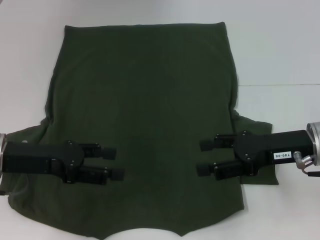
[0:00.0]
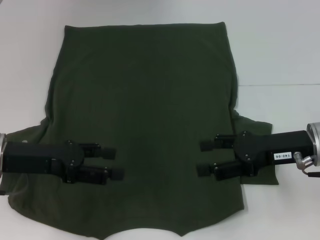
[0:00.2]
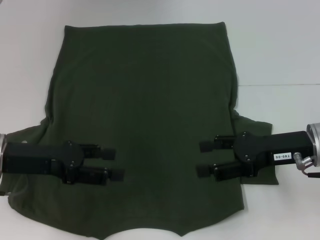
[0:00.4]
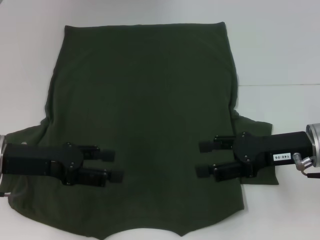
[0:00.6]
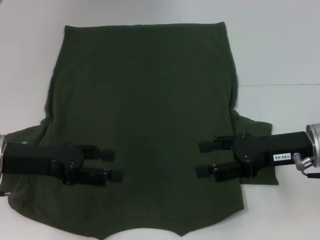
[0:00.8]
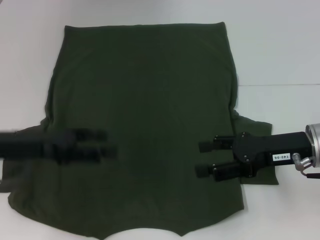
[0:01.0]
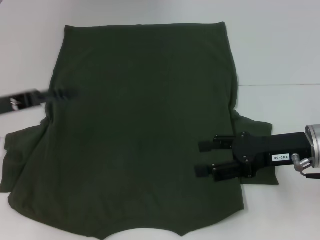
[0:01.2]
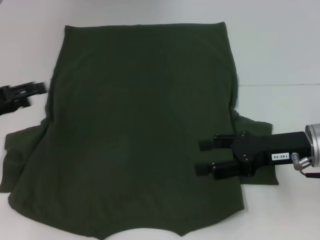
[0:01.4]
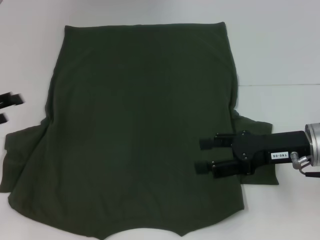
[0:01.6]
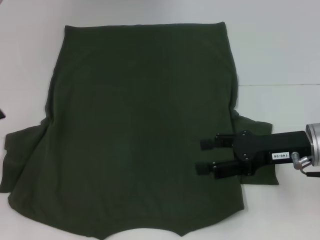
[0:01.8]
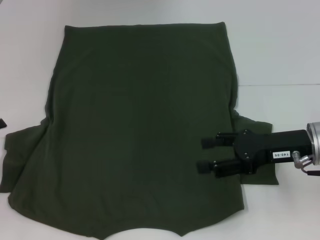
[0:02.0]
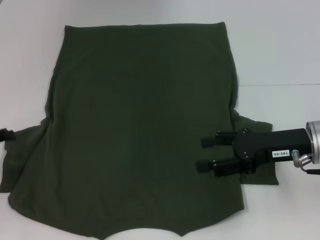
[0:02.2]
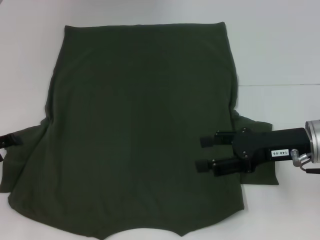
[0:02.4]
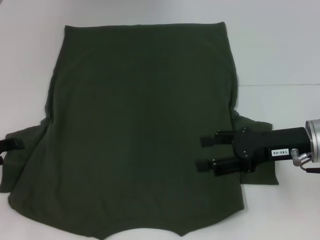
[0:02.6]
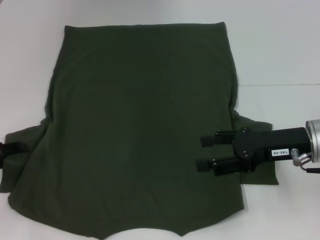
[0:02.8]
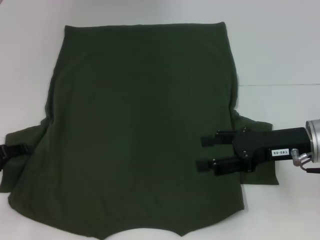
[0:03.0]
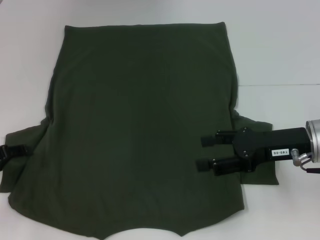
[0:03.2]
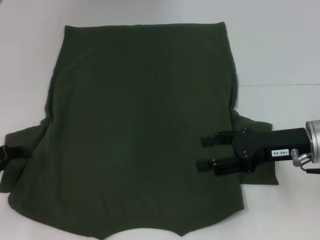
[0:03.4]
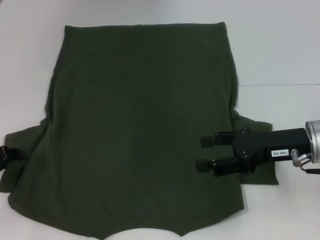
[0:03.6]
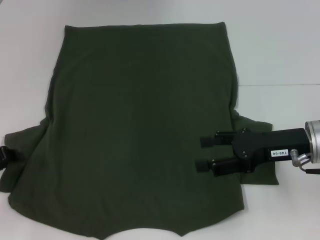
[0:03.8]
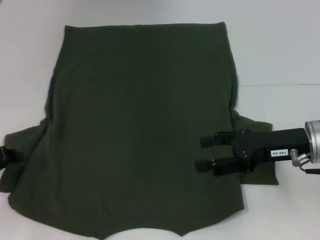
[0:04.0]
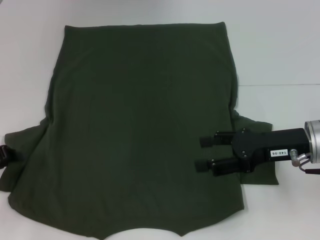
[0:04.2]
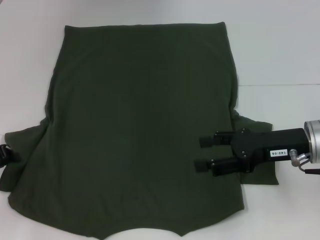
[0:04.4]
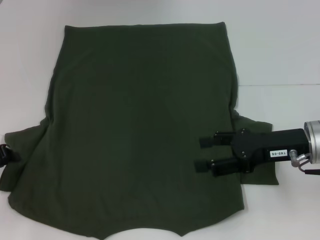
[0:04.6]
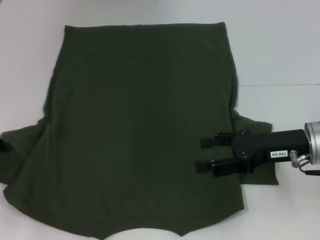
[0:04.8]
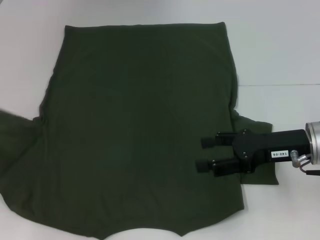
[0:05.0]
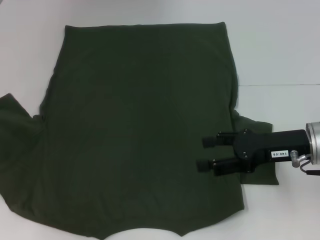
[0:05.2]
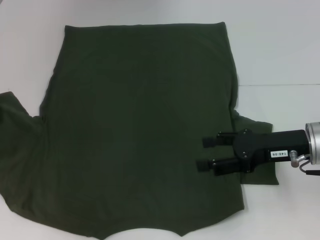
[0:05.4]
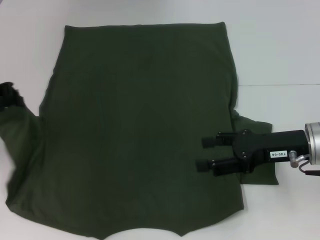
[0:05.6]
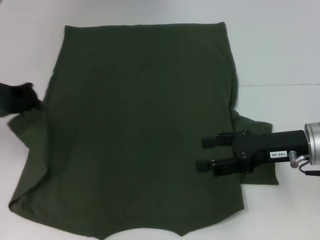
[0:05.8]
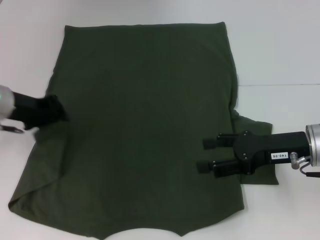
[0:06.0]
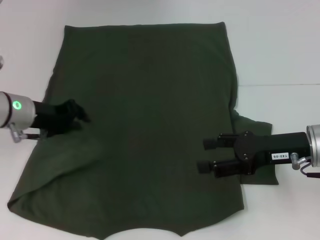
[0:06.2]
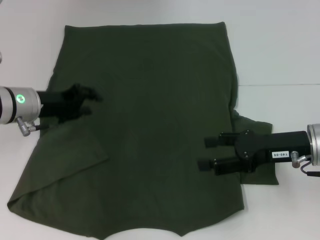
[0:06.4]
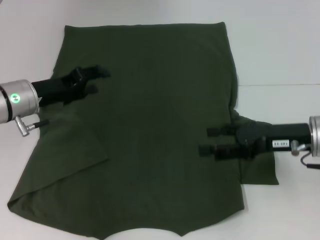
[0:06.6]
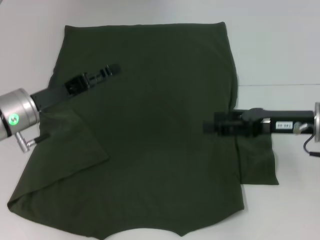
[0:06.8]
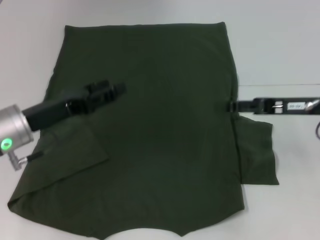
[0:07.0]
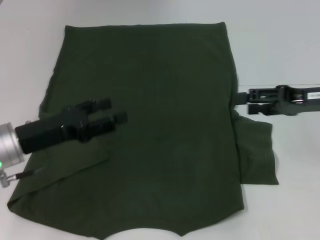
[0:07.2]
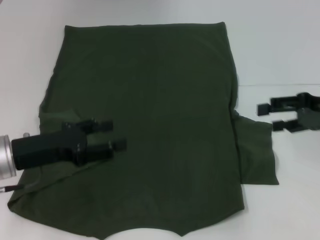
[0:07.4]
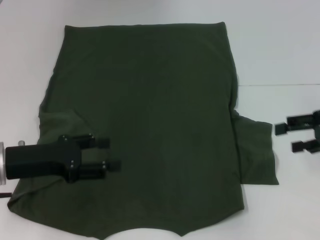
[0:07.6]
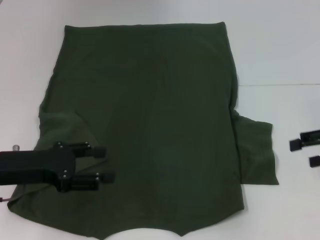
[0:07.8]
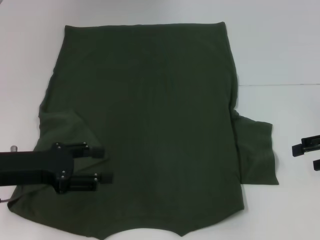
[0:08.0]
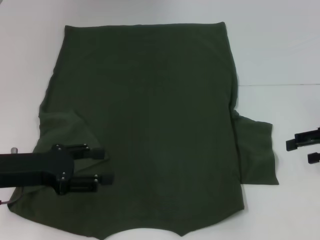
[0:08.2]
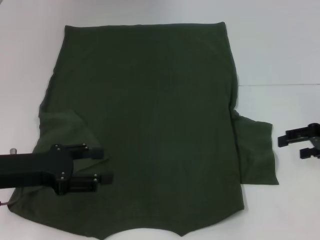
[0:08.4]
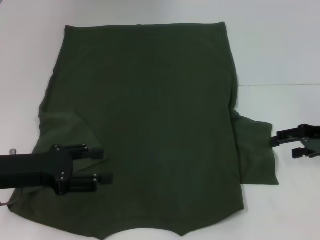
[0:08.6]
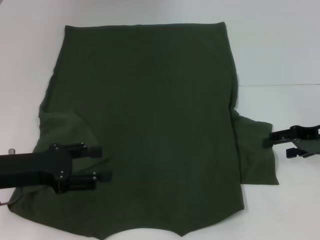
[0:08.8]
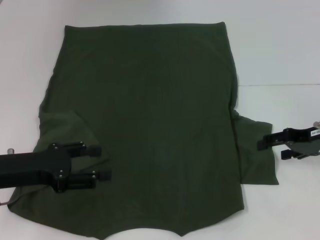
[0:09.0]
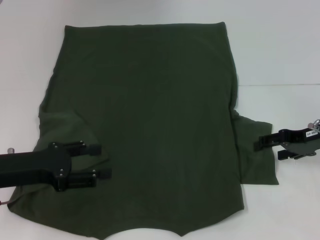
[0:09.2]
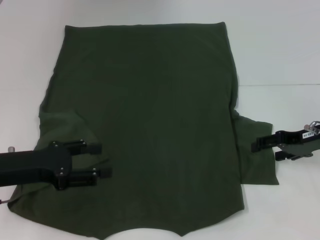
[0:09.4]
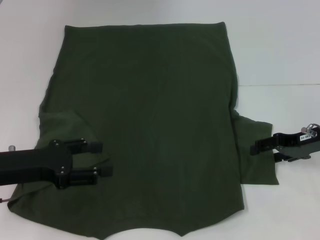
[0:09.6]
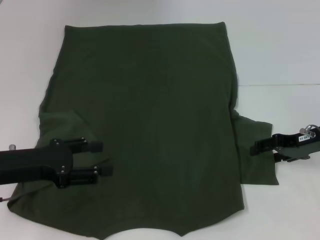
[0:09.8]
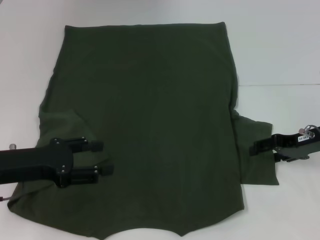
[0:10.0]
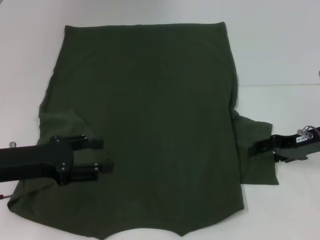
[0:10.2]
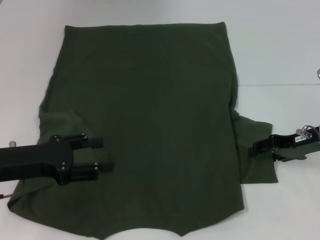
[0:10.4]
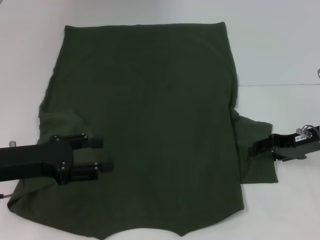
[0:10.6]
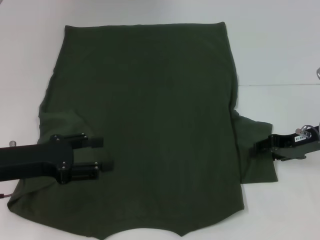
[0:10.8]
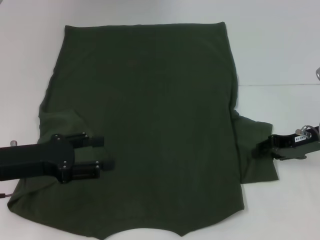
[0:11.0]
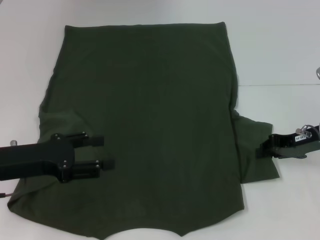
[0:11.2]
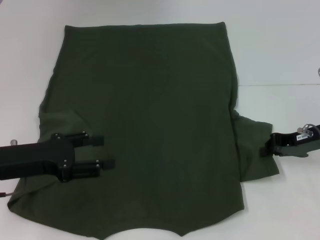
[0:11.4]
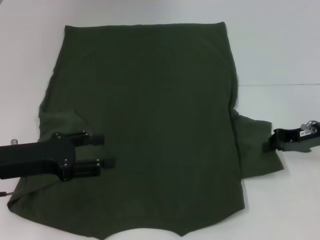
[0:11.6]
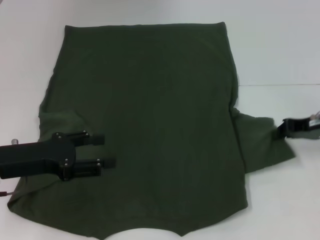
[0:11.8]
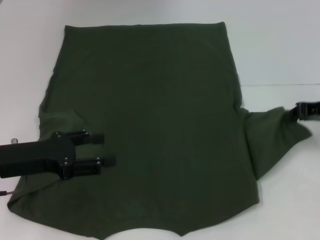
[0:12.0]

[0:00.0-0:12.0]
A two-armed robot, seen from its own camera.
Step, 0:00.0 to 0:06.2: Fold the bottom left sleeve with your left hand.
0:00.0 to 0:01.6: The left gripper goes about 10 cm to the left.
0:01.6 to 0:03.0: The left gripper shifts roughly 5 cm downward.
0:04.4 to 0:06.0: The left gripper moves forward, to the right and upward, roughly 15 cm.
0:06.0 to 0:07.6: The right gripper heads to the right, covering roughly 10 cm; the left gripper moves backward, about 10 cm, and opens.
0:07.6 to 0:09.0: The right gripper moves roughly 5 cm.
0:09.0 to 0:10.4: The grippers stay close to where they were, moving slightly.
0:10.4 to 0:12.0: The right gripper changes place by about 5 cm, and closes up.

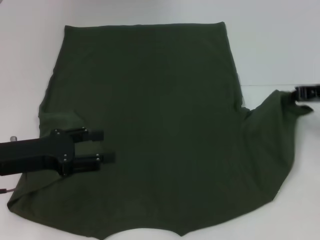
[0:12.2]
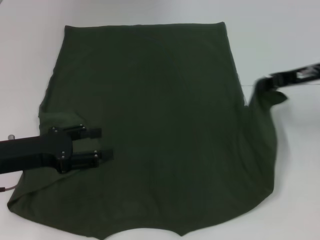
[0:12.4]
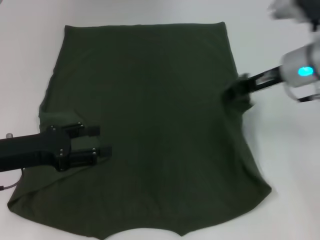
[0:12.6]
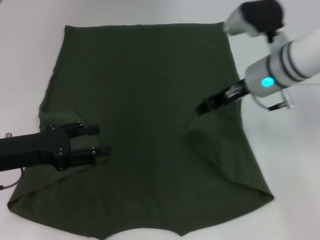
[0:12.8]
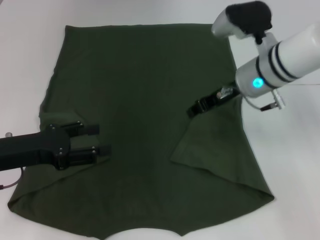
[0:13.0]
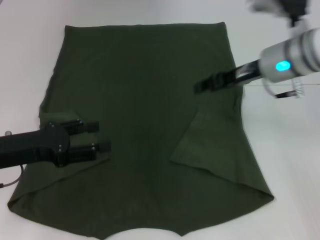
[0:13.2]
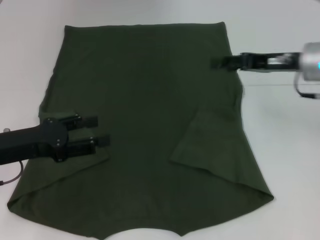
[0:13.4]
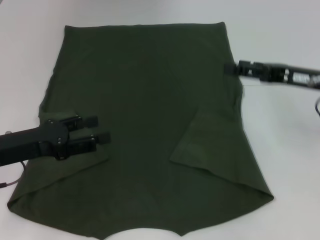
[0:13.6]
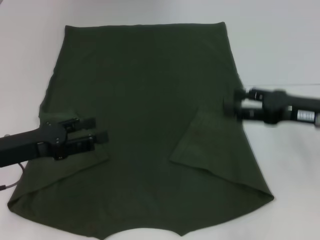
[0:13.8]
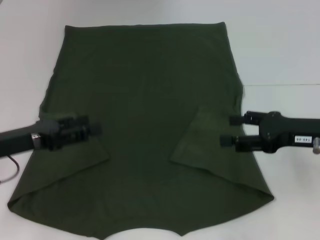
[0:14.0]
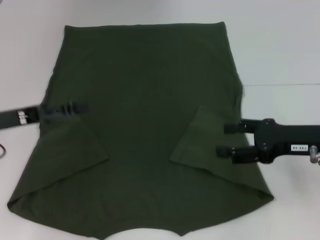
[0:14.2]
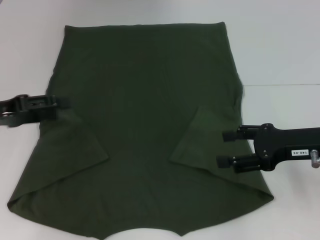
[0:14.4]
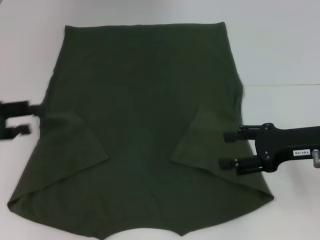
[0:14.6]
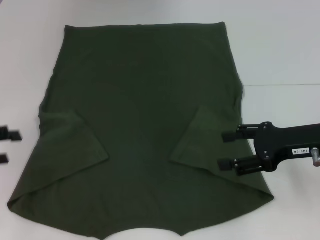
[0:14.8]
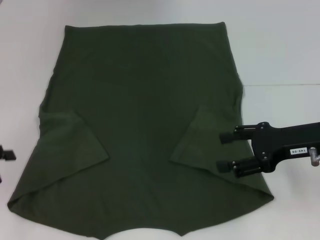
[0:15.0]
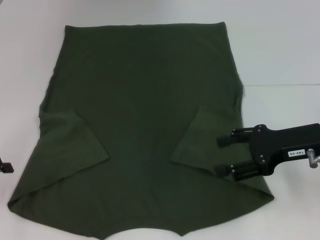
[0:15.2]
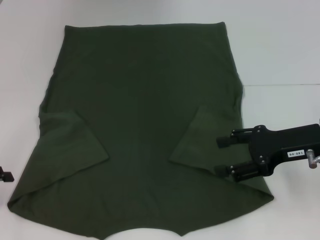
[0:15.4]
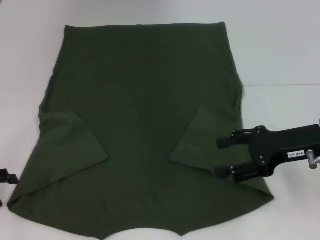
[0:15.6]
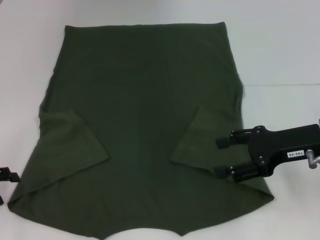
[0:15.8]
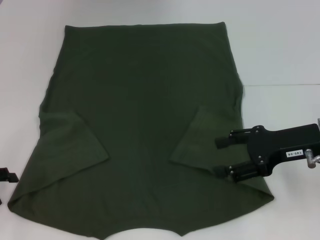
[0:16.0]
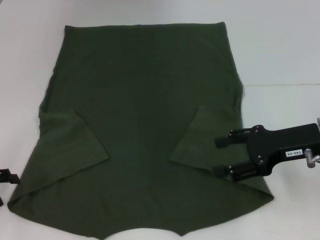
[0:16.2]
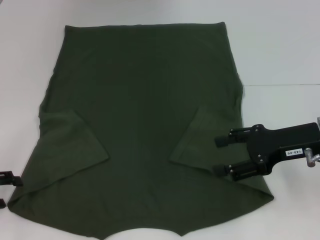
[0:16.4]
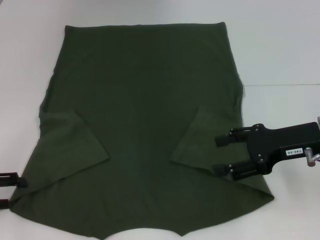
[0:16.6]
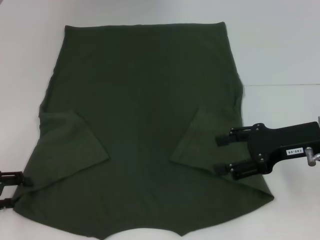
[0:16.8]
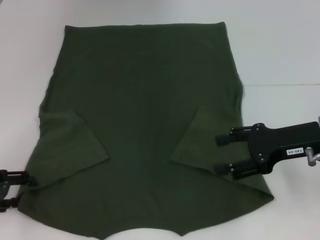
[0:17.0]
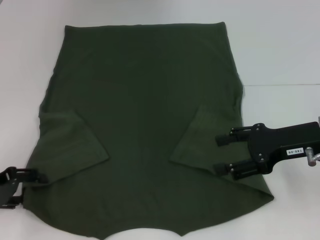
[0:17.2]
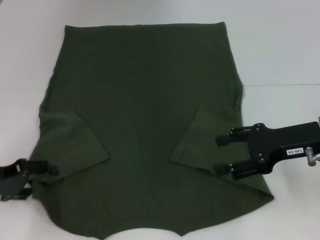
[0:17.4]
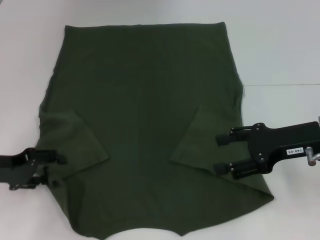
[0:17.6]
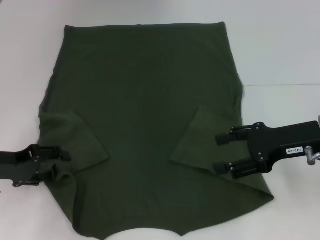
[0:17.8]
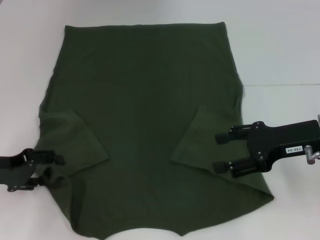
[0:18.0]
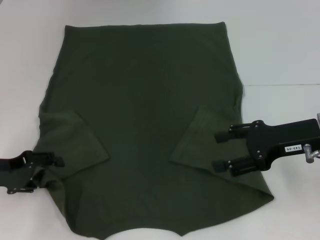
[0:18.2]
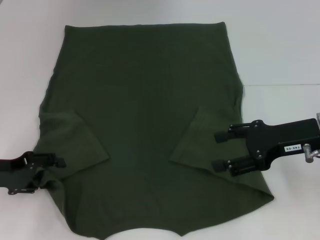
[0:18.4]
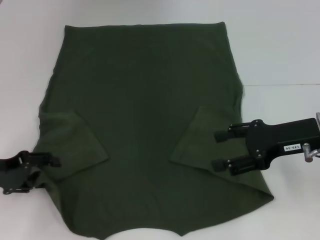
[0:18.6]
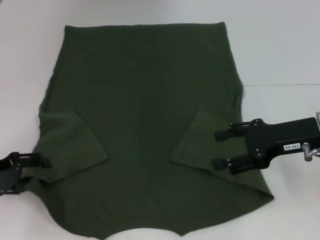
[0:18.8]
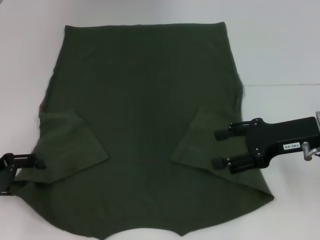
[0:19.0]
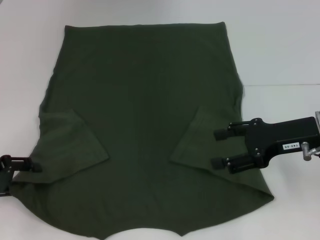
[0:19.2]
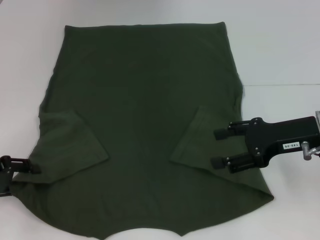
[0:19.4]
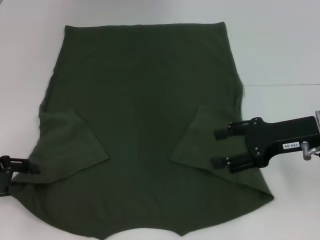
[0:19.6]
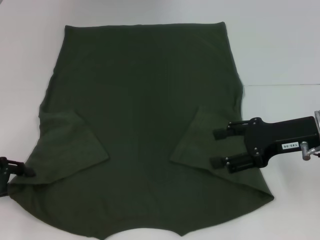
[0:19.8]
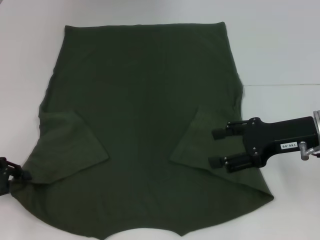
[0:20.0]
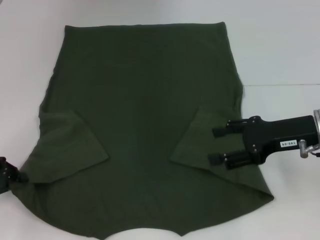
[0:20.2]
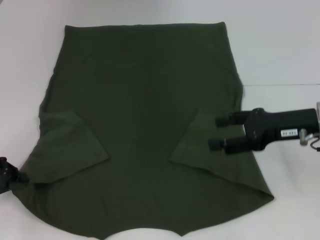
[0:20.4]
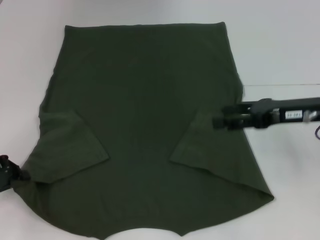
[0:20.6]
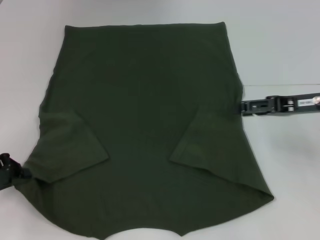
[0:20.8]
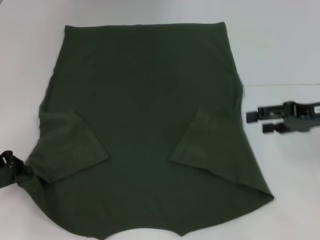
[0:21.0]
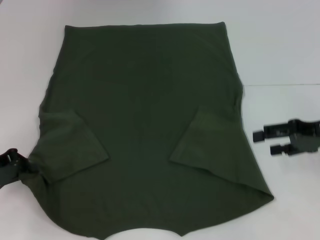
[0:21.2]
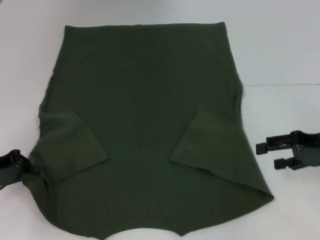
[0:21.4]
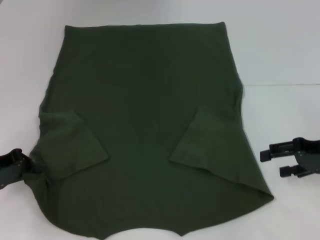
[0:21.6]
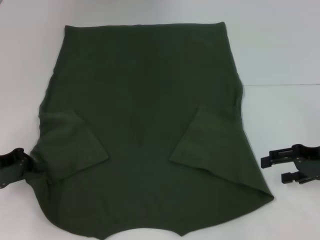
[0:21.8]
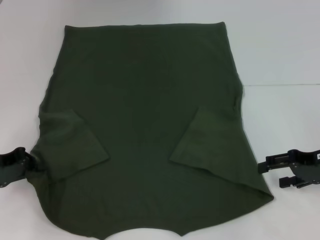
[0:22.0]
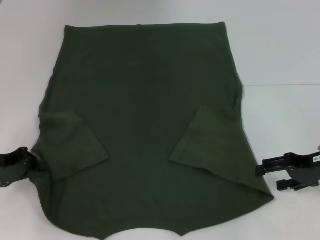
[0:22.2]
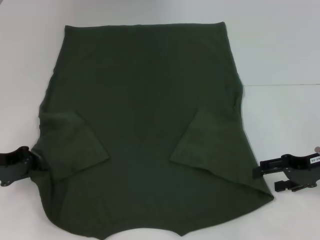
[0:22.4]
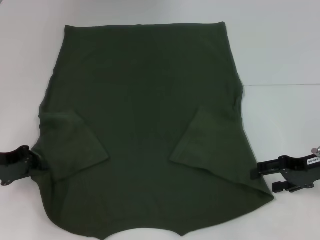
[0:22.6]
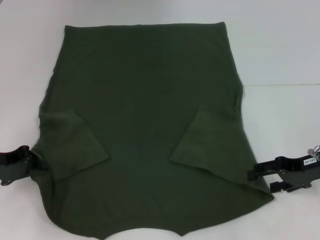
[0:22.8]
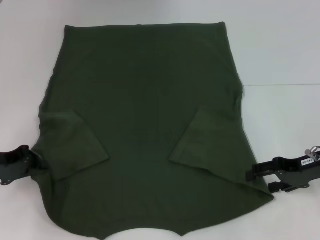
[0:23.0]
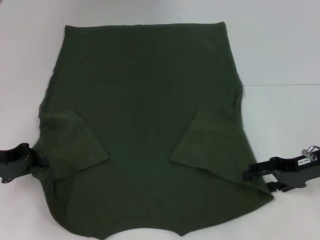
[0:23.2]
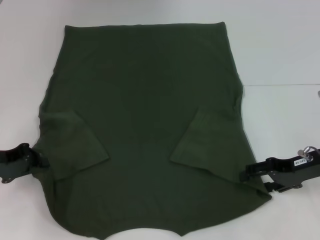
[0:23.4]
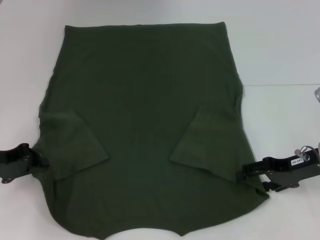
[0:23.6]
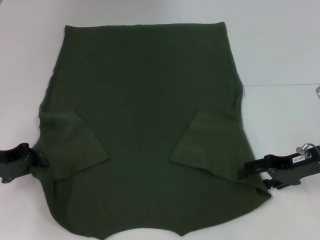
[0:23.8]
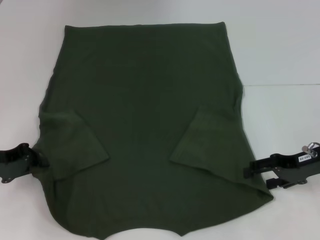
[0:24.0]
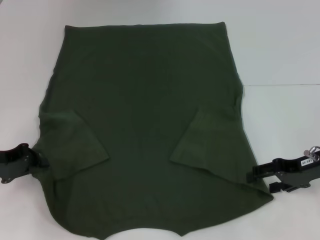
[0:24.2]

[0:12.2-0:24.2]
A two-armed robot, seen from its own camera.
Step, 0:13.2 to 0:20.4: Grab the bottom left corner with your left hand.
0:12.2 to 0:13.8: The right gripper moves backward, some 5 cm, moves roughly 15 cm to the left and comes back, and opens its fingers.
0:13.8 to 0:15.2: The left gripper travels to the left by some 10 cm.
0:15.2 to 0:16.6: The grippers make only small movements.
0:16.6 to 0:18.2: The left gripper shifts by roughly 5 cm.
0:18.2 to 0:19.8: The grippers stay close to where they were, moving slightly.
0:19.8 to 0:21.2: The right gripper is displaced to the right by approximately 5 cm; the left gripper closes its fingers.
0:21.2 to 0:22.6: The right gripper shifts by roughly 5 cm.
0:22.6 to 0:24.2: There are only small adjustments of the grippers.
